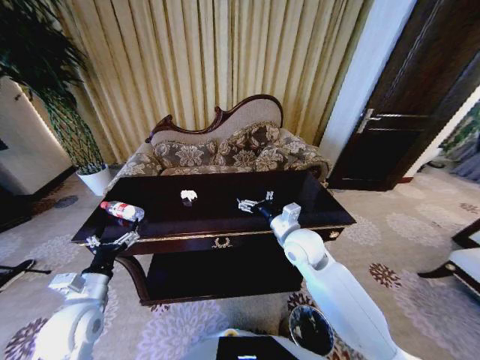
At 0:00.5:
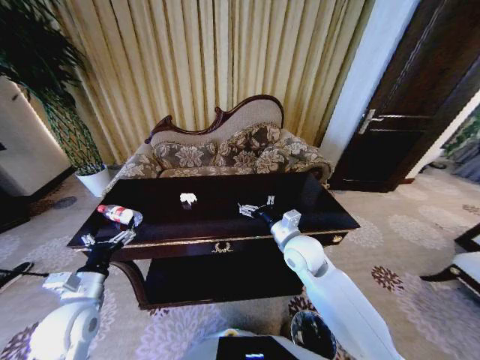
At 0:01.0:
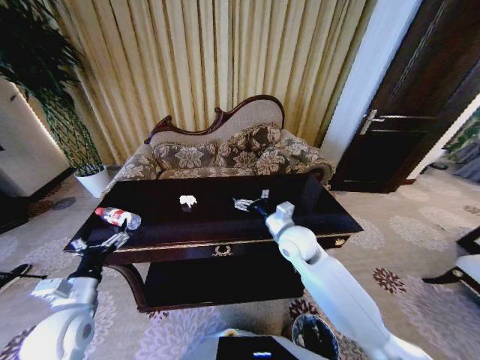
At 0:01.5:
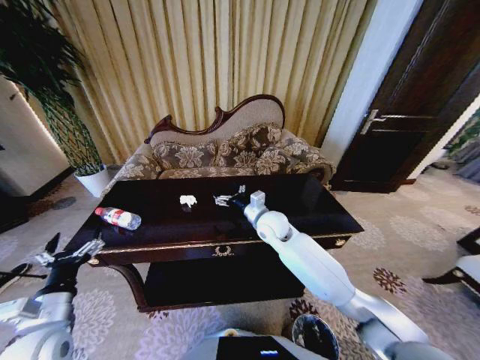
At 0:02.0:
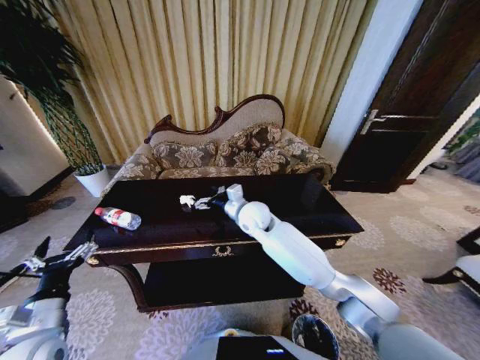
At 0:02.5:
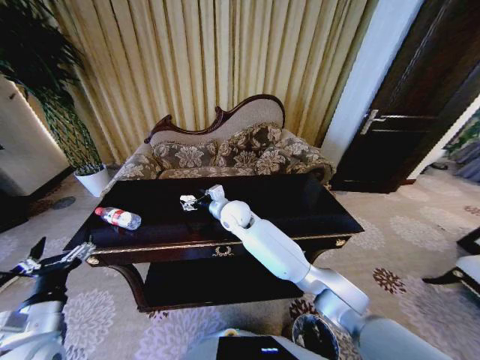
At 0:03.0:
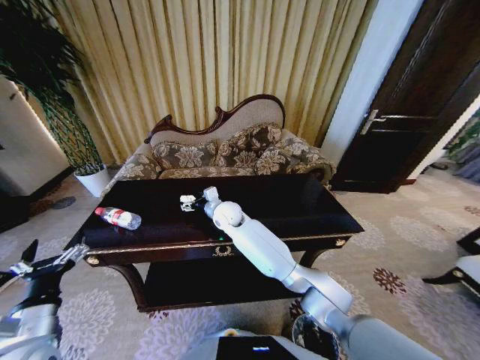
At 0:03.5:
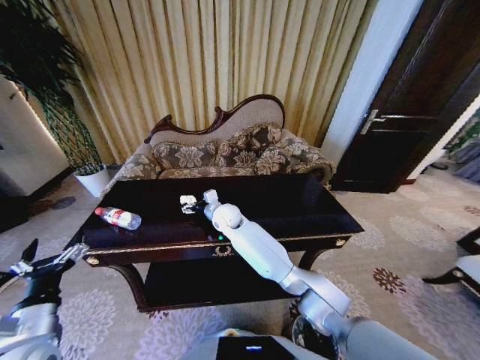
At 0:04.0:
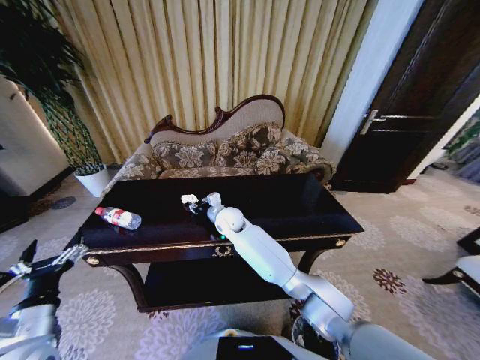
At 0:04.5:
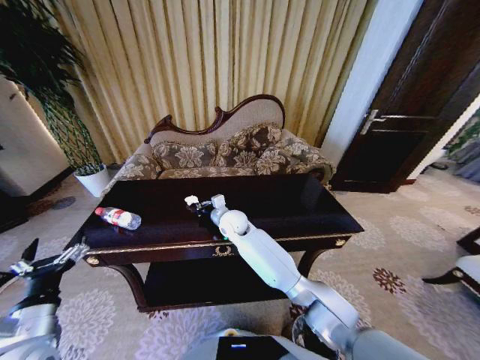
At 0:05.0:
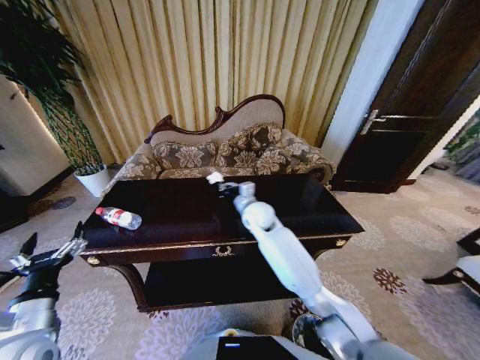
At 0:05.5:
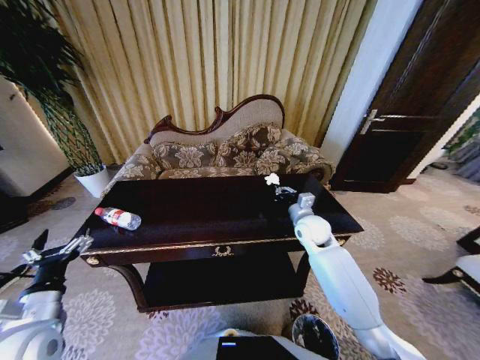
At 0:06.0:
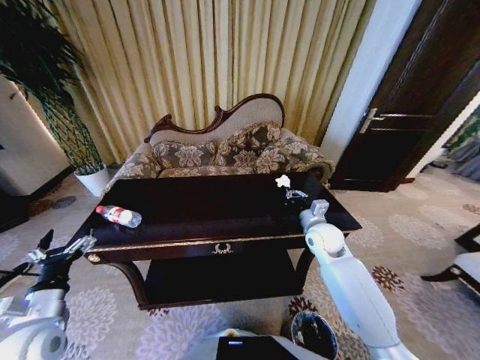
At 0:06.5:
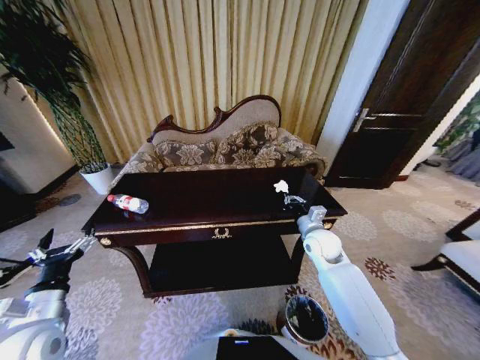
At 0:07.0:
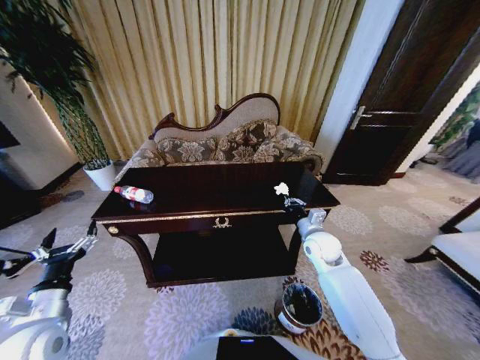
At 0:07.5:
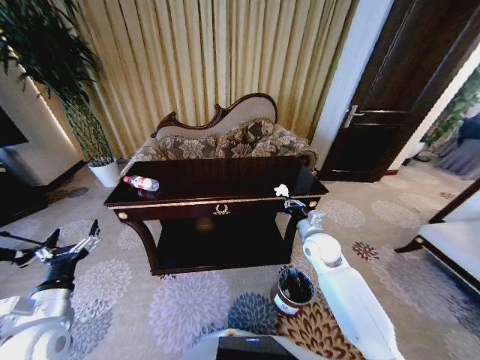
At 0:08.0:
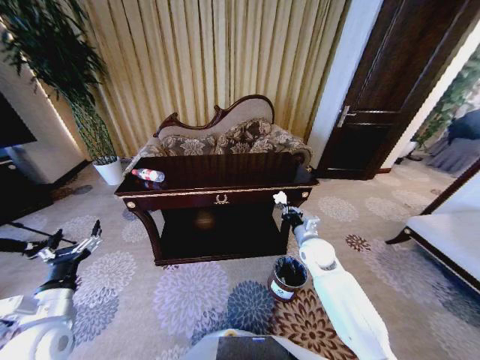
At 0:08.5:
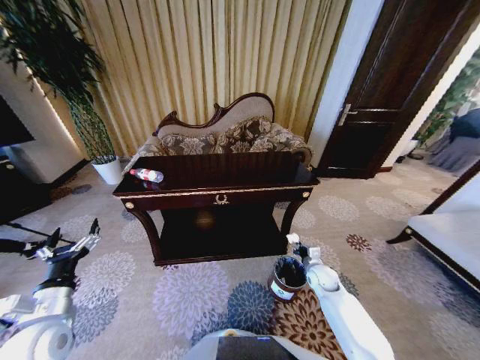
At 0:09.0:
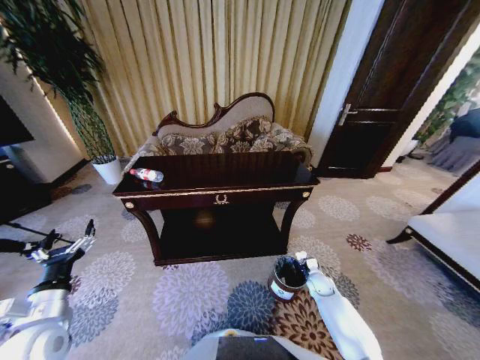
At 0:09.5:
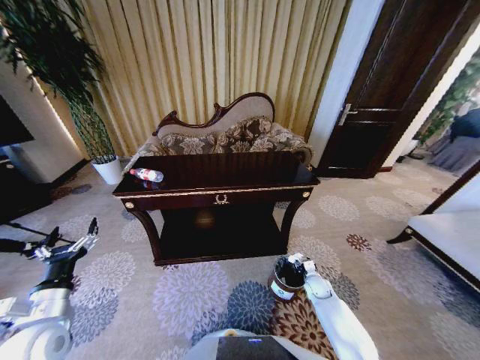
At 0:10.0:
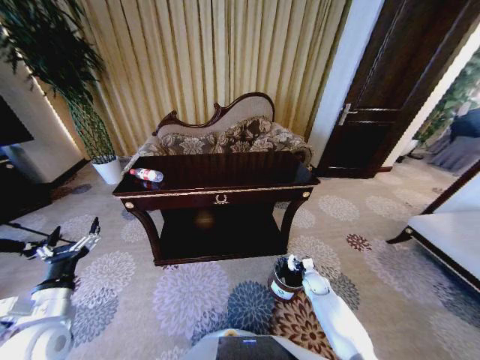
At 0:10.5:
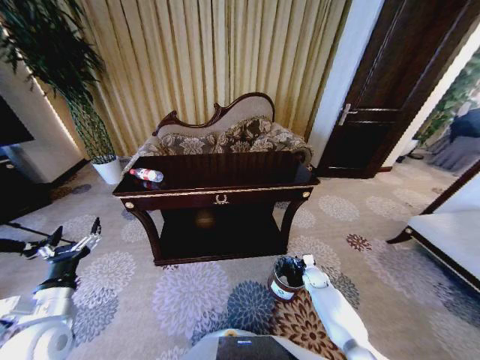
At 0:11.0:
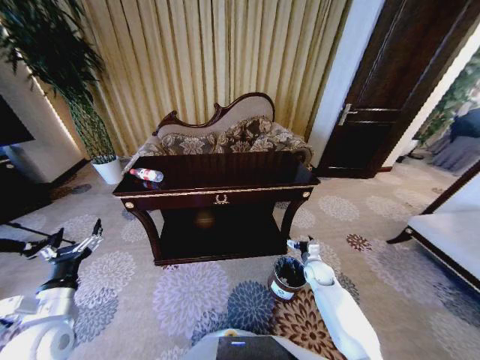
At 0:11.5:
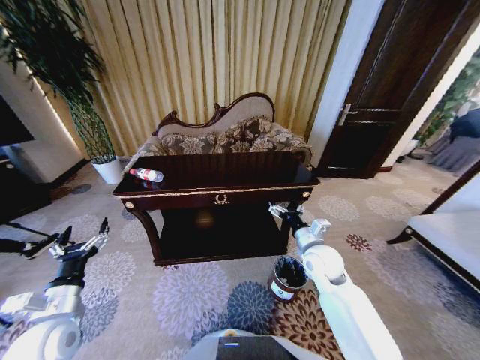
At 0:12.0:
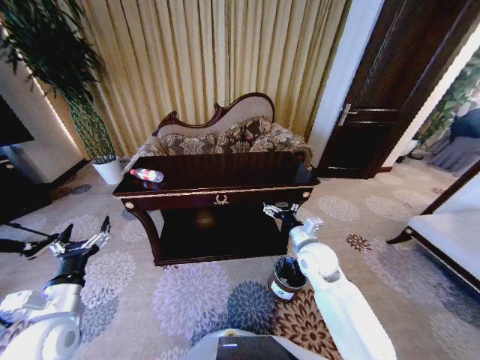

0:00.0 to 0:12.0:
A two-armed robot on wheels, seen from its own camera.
Task of the whole recording: Move to the front of the table and place the trash on the table into the trash bin.
0:00.0 to 0:02.0: The right gripper shifts about 15 cm to the left and forward; the left gripper is displaced backward by some 5 cm.
0:02.0 to 0:04.0: The right gripper moves downward and to the left, approximately 10 cm, and closes.
0:04.0 to 0:06.0: The right gripper goes approximately 30 cm to the right, and closes up.
0:06.0 to 0:08.0: The right gripper shifts by roughly 5 cm.
0:08.0 to 0:10.0: The right gripper shifts roughly 25 cm downward, and opens.
0:10.0 to 0:12.0: The right gripper shifts approximately 30 cm upward and to the left.

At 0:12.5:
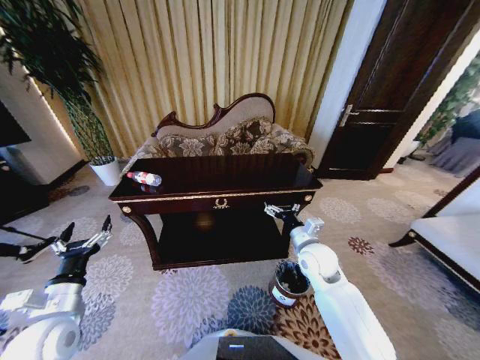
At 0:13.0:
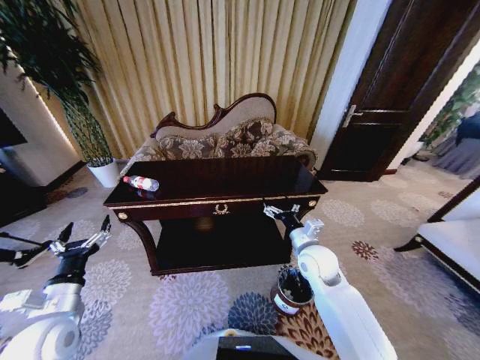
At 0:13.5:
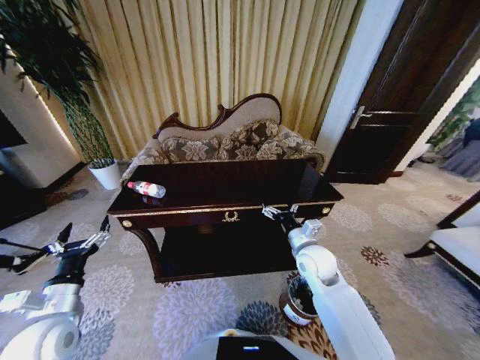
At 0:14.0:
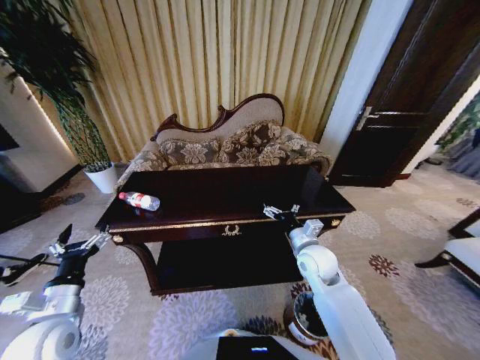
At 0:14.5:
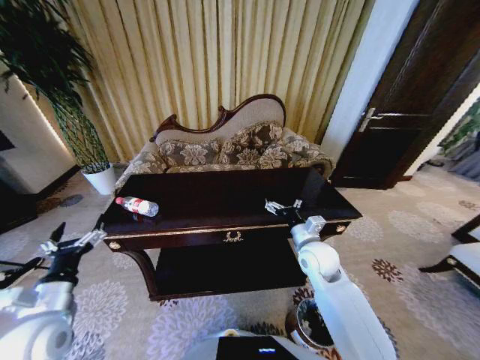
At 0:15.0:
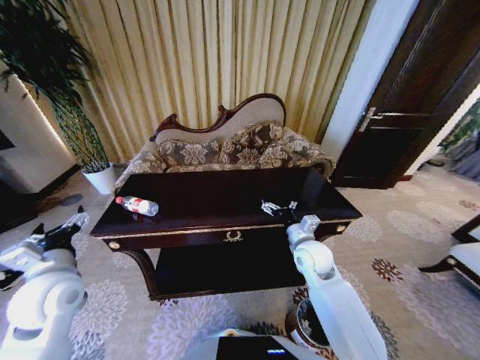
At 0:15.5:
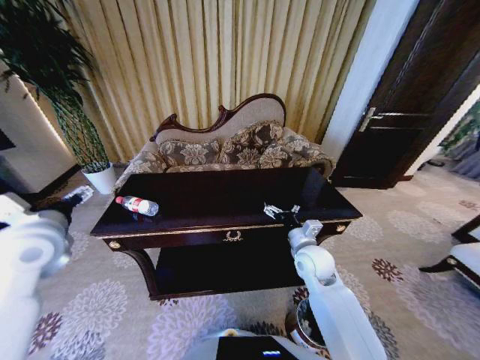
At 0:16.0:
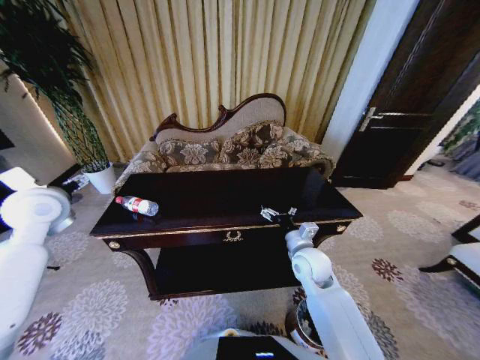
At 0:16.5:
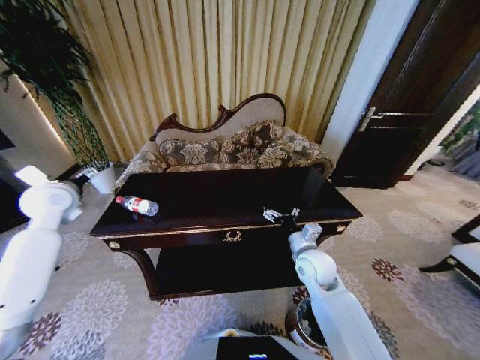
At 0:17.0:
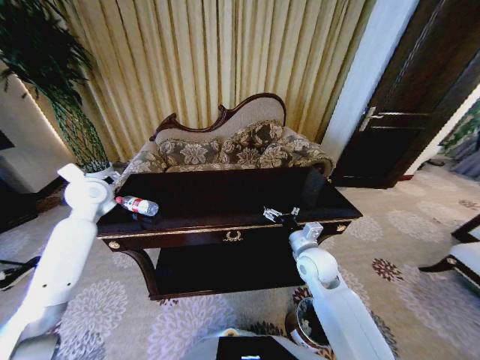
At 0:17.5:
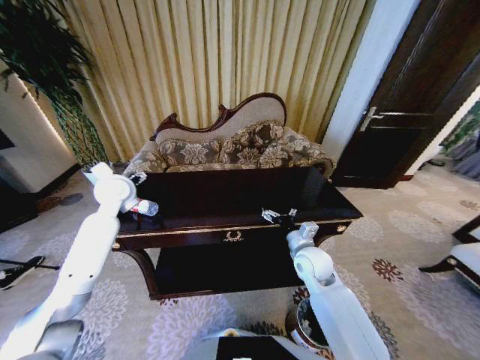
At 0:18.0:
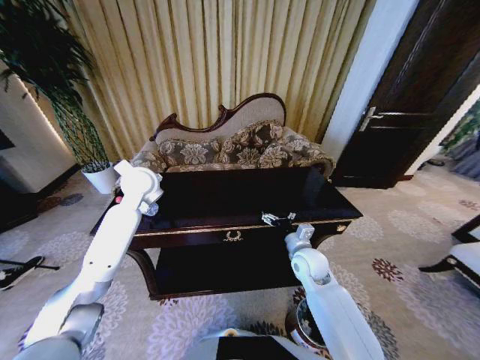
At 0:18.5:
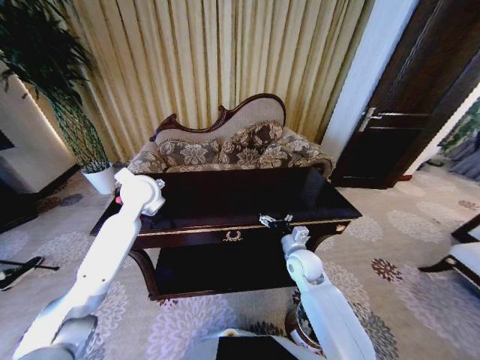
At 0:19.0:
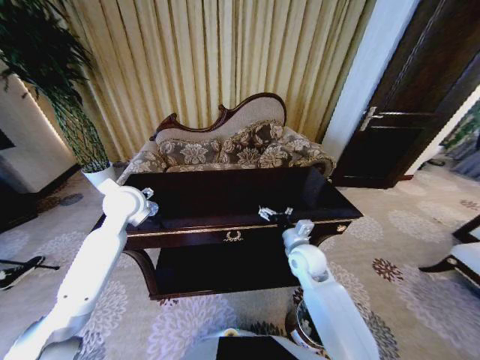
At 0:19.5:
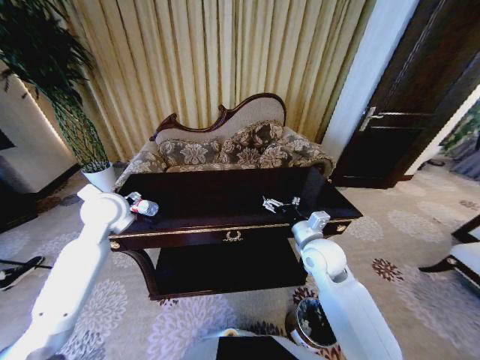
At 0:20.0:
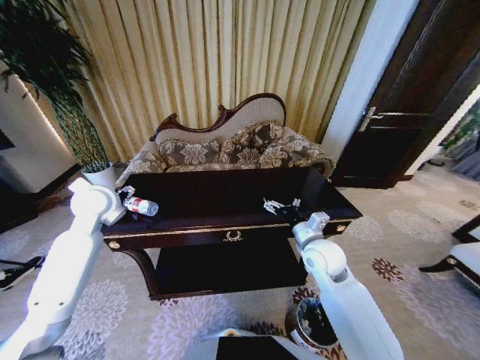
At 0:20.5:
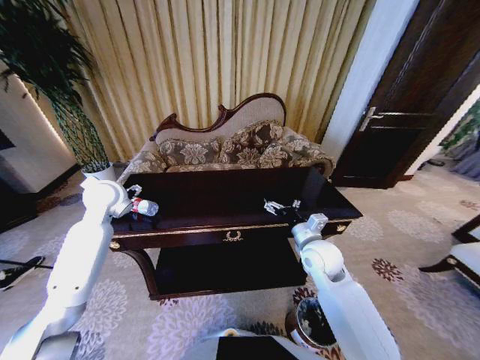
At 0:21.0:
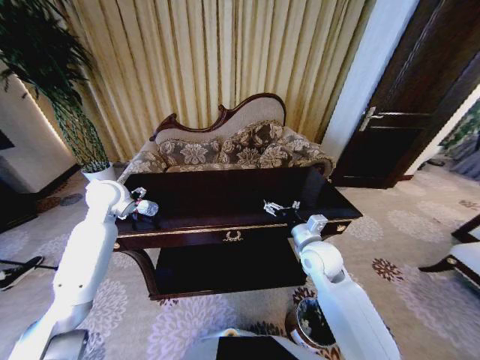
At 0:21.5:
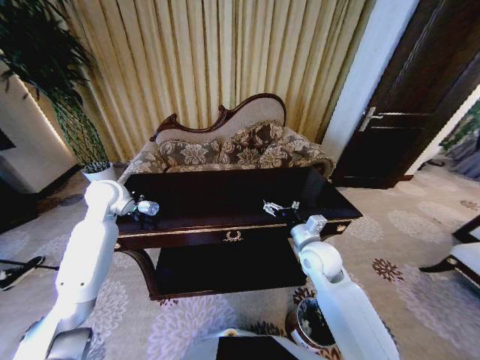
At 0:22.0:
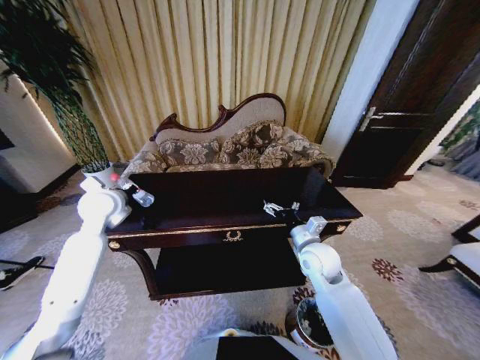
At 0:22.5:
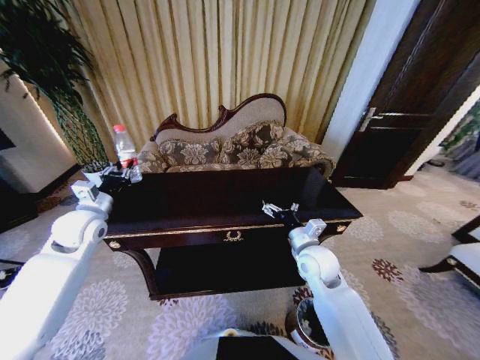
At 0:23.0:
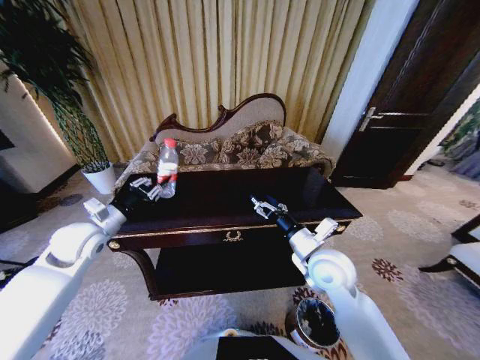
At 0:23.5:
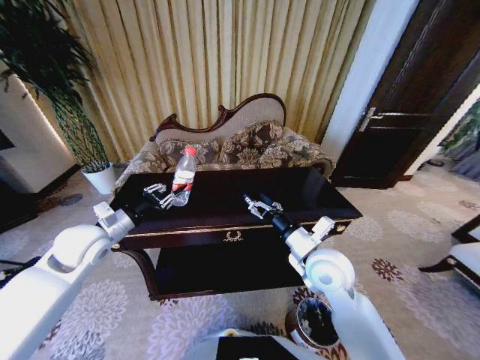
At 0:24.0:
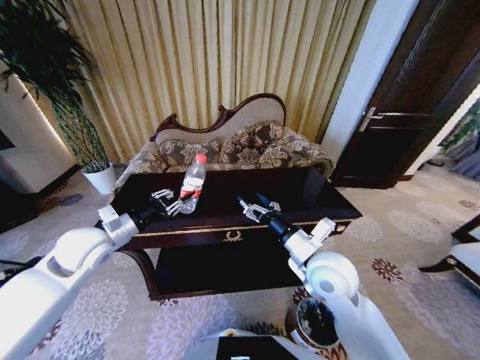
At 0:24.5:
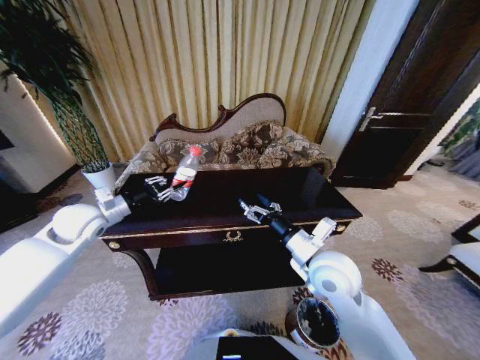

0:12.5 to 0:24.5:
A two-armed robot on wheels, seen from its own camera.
Task of the whole recording: Move to the front of the table and place the trash on the table into the trash bin.
0:14.5 to 0:16.5: The left gripper travels forward and upward by some 30 cm.
0:16.5 to 0:18.5: The right gripper moves downward, some 5 cm; the left gripper travels to the right by some 20 cm.
0:18.5 to 0:20.5: The right gripper shifts some 10 cm upward. The left gripper is displaced to the left by some 10 cm.
0:20.5 to 0:22.5: The left gripper moves backward and to the left, some 10 cm, and closes.
0:22.5 to 0:24.5: The right gripper goes approximately 10 cm upward and backward.

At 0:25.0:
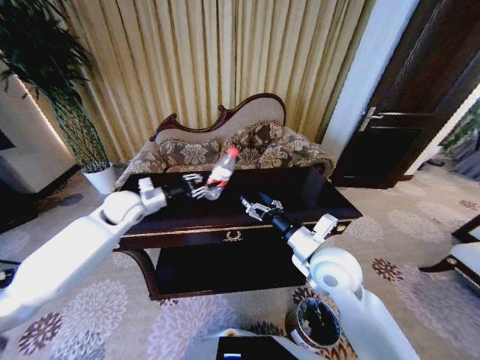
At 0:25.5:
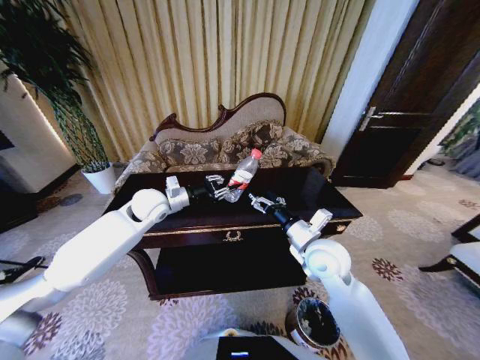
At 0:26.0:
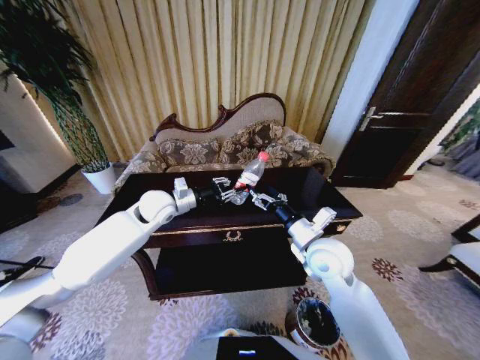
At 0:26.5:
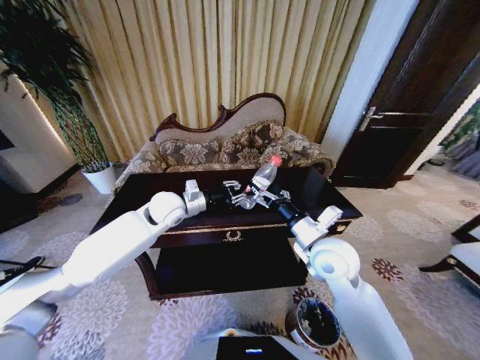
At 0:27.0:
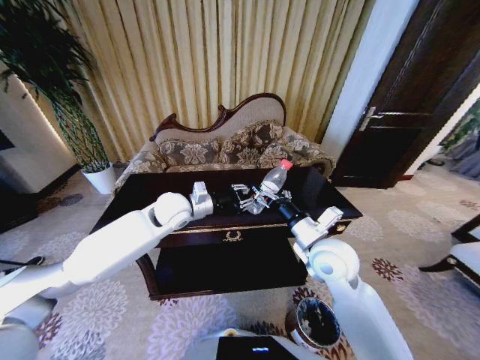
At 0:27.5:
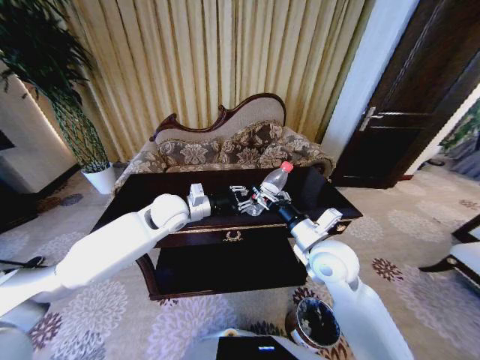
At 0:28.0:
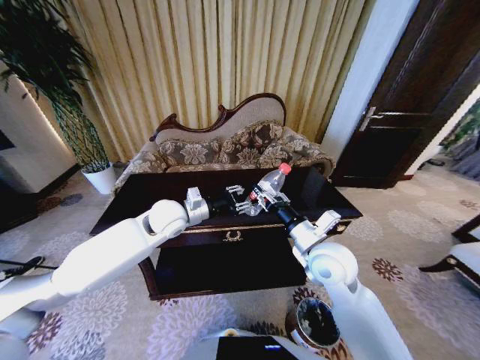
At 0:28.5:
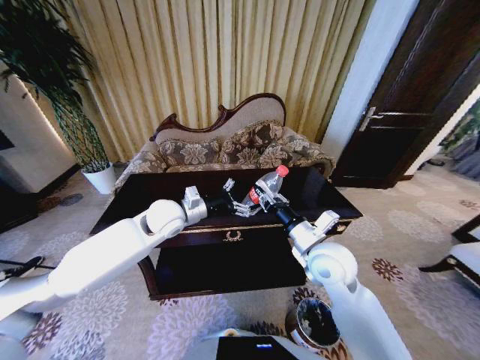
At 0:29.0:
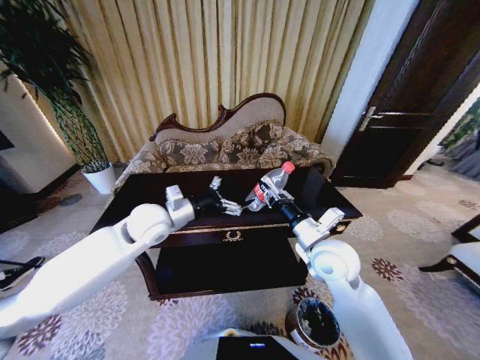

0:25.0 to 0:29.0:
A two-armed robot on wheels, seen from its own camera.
Task of the whole recording: Move to the front of the table and place the trash on the table into the trash bin.
0:25.0 to 0:27.0: The left gripper shifts about 15 cm to the right.
0:27.0 to 0:29.0: The right gripper closes up. The left gripper is displaced backward and to the left by about 5 cm, and opens its fingers.
